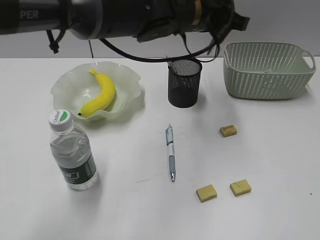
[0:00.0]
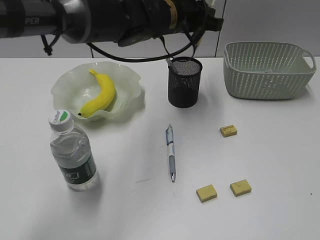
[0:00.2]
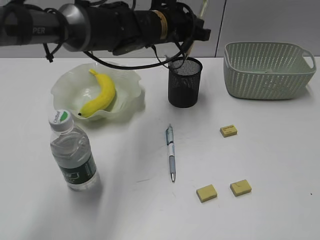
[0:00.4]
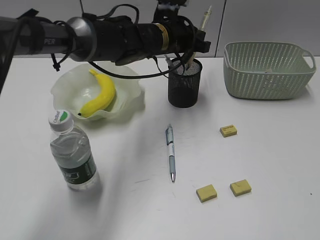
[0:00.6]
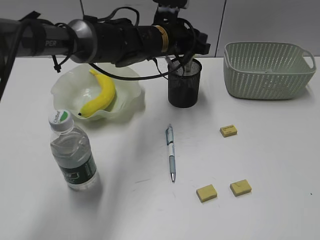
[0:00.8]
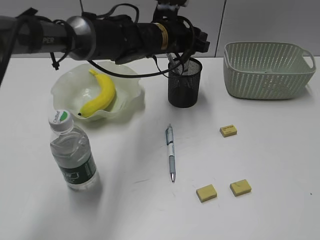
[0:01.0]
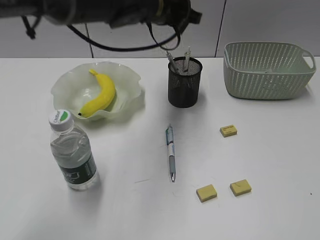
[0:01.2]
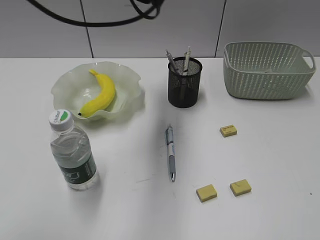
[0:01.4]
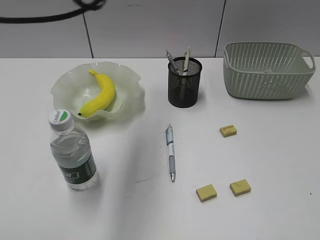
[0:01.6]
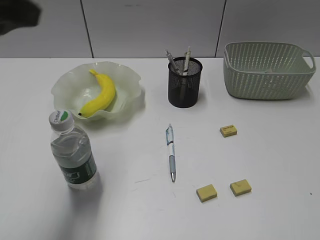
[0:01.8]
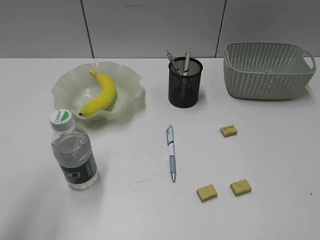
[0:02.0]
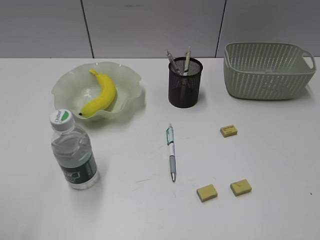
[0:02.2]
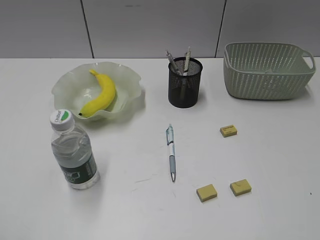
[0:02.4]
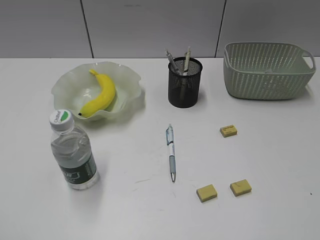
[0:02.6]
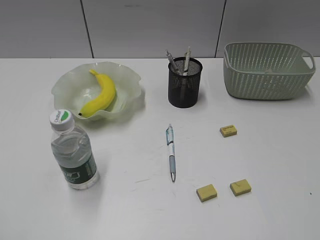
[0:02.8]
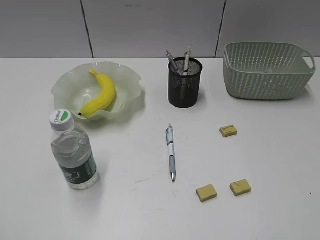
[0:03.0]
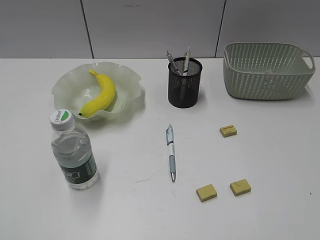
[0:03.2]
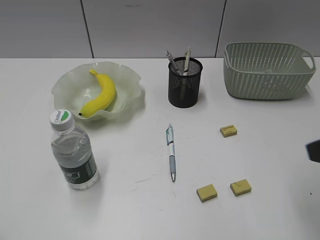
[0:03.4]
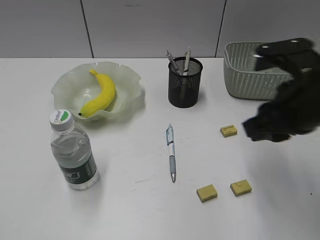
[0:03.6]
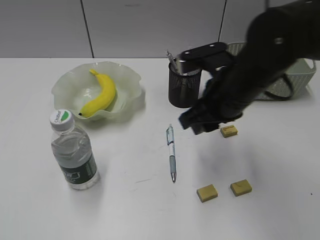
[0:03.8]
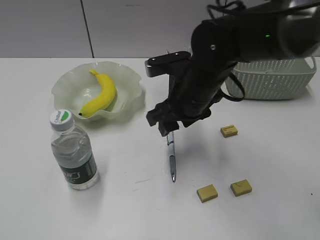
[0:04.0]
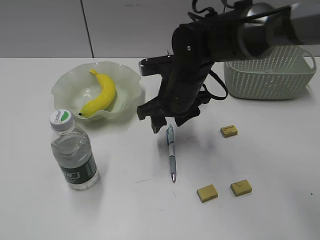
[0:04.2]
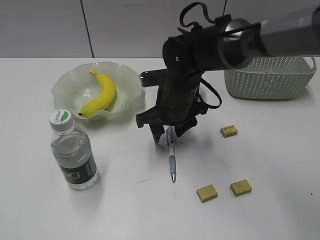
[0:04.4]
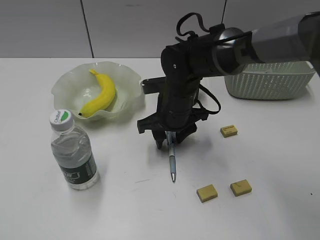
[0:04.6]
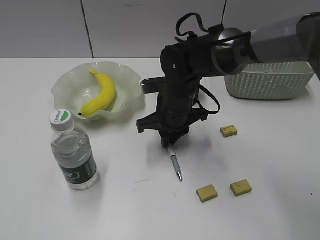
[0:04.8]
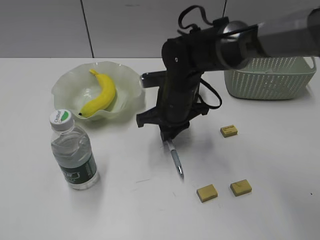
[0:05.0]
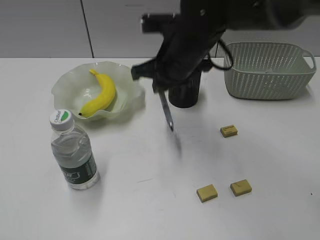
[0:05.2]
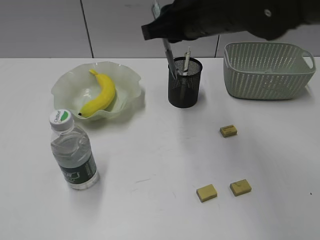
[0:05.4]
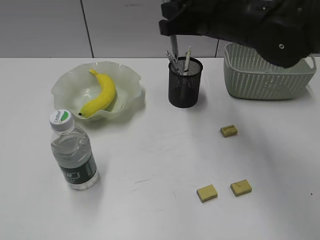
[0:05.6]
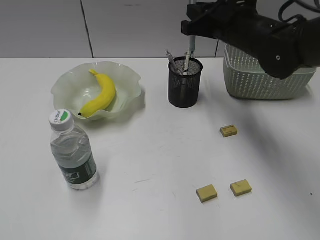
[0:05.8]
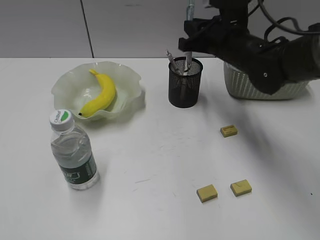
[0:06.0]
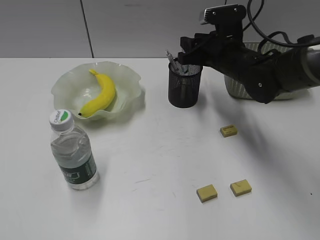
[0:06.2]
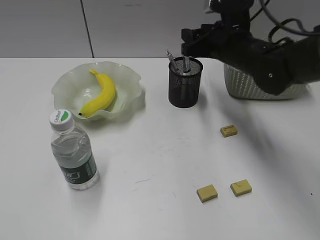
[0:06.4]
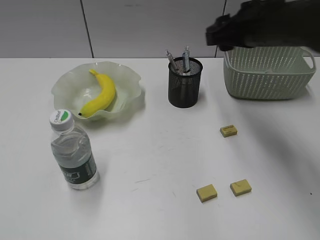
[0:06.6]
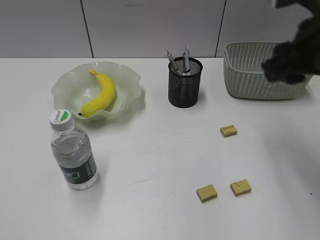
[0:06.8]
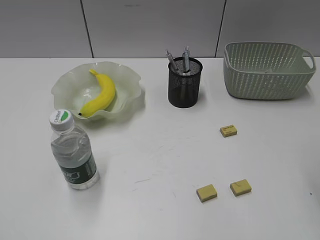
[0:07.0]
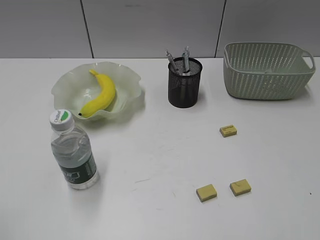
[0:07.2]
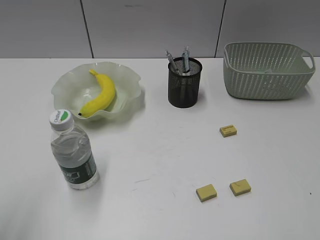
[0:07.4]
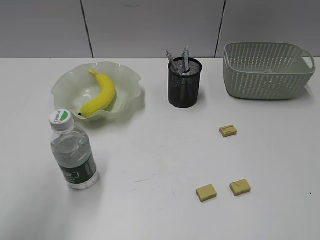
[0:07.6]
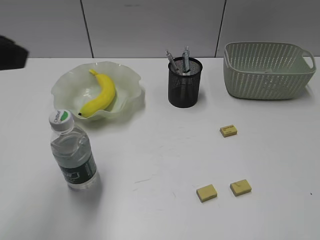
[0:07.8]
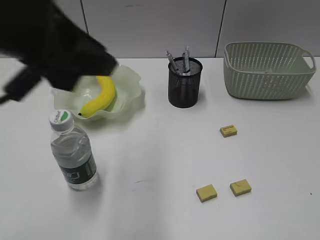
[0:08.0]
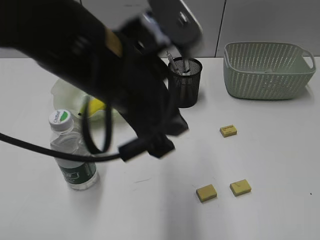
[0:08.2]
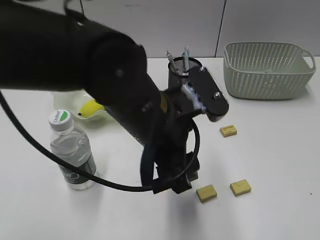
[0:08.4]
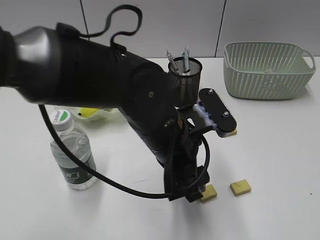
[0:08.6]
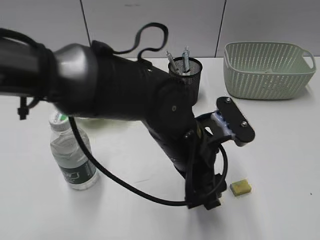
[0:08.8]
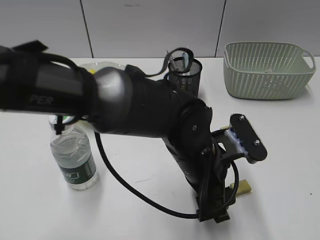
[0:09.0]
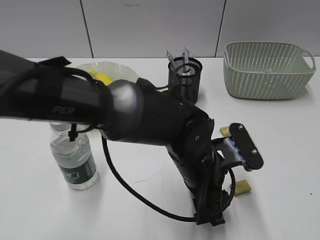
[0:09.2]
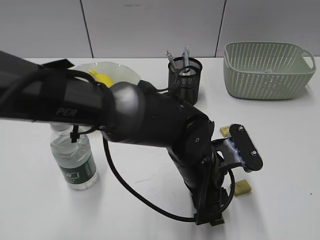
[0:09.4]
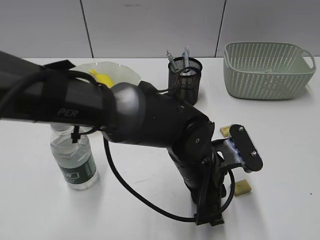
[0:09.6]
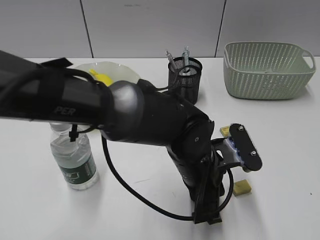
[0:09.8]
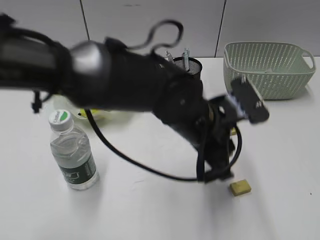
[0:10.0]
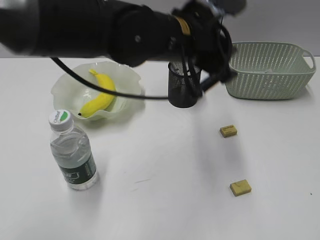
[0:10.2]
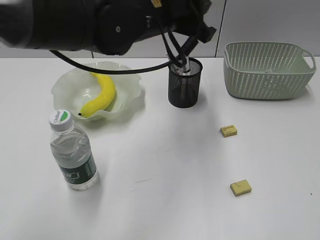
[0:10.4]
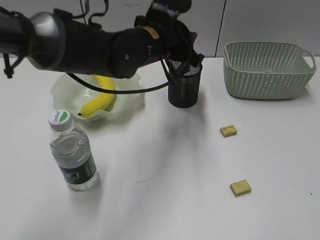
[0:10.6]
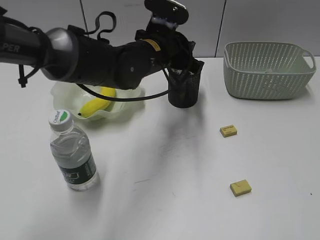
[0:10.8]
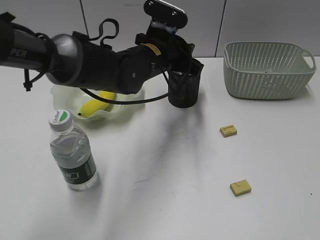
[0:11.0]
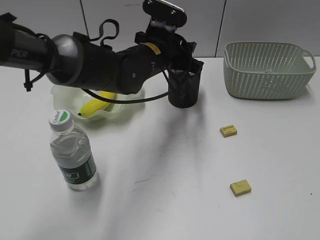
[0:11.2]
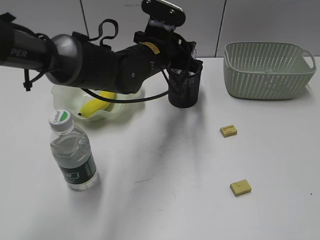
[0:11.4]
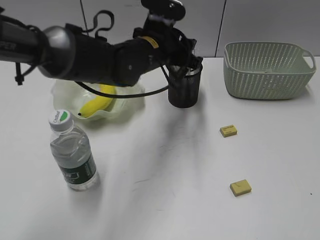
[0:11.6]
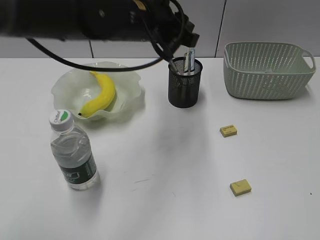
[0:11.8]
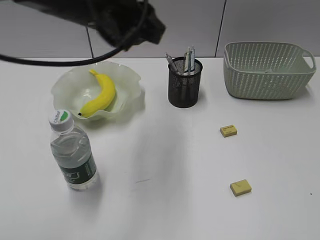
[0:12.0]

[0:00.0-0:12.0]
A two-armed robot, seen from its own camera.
Step, 0:00.0 to 0:01.0: Place the yellow pen in pen holder with left gripper.
Step, 0:01.2 to 0:04.8: Grasp the blue pen with right gripper.
Step, 0:05.0 to 0:06.4: Place the blue pen in pen holder with right gripper.
Step, 0:06.6 to 0:09.6: Grasp the eraser with left gripper.
Step, 0:09.8 to 0:11.6: Place the eraser in pen holder with left gripper.
0:00.0 to 0:01.6: The left gripper is displaced to the left, upward and backward by about 20 cm.
0:01.6 to 0:03.0: The left gripper moves backward and to the left, roughly 40 cm, and opens its fingers.
0:03.0 to 0:04.4: The right gripper shifts about 50 cm forward, to the left and downward, and opens up.
0:04.4 to 0:06.0: The right gripper shifts about 15 cm to the right, upward and forward, and closes its fingers.
0:06.0 to 0:07.6: The left gripper shifts approximately 15 cm forward and to the right. The right gripper moves backward and to the right, approximately 40 cm, and opens its fingers.
0:07.6 to 0:09.0: The left gripper shifts roughly 40 cm to the right and downward, and opens its fingers.
0:09.0 to 0:10.4: The left gripper heads upward, forward and to the left, covering about 20 cm, and closes.
0:10.4 to 0:12.0: The left gripper shifts about 5 cm to the left, and moves approximately 10 cm downward and comes back.

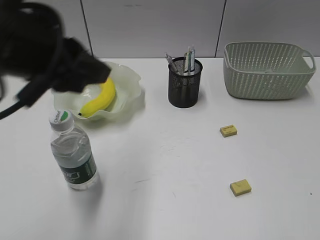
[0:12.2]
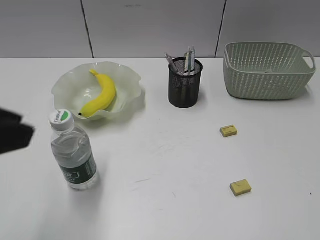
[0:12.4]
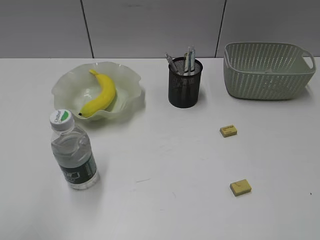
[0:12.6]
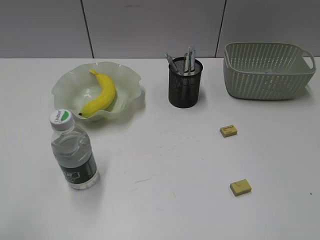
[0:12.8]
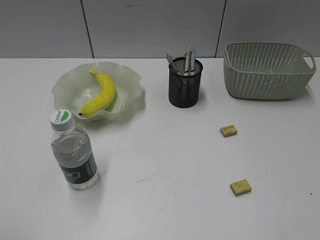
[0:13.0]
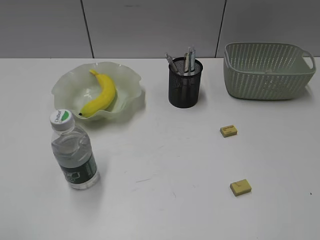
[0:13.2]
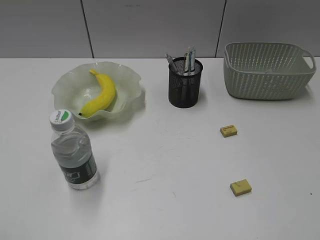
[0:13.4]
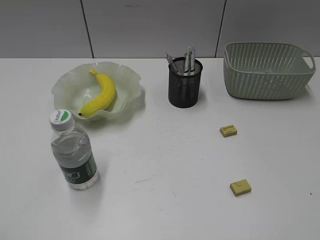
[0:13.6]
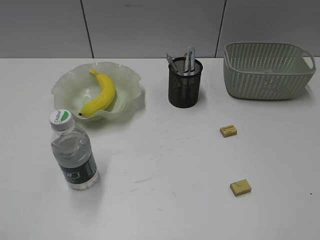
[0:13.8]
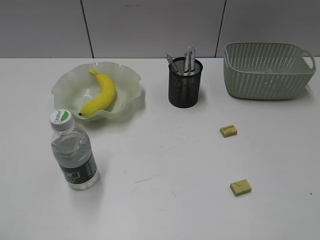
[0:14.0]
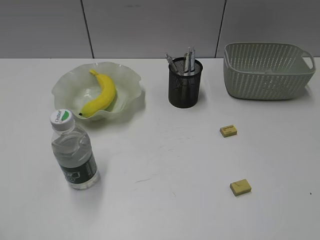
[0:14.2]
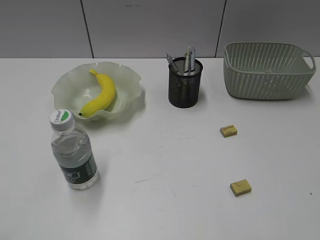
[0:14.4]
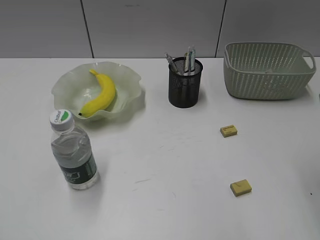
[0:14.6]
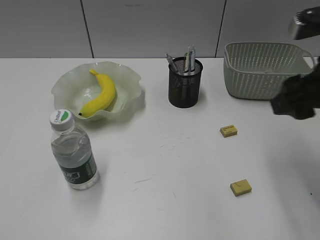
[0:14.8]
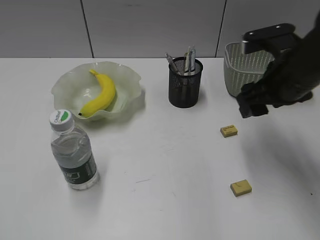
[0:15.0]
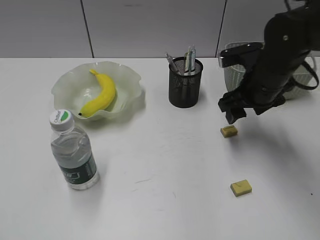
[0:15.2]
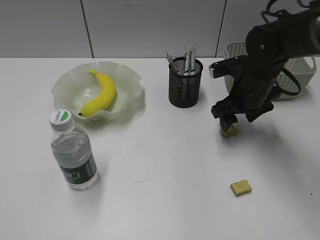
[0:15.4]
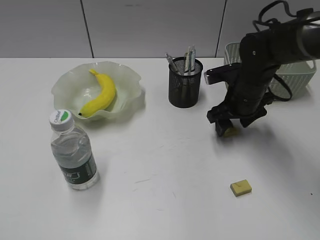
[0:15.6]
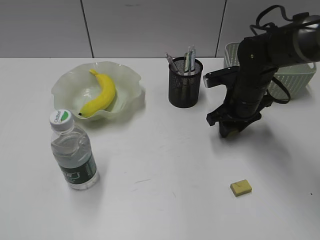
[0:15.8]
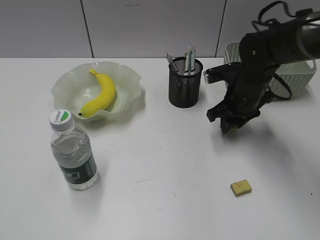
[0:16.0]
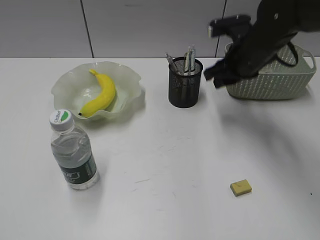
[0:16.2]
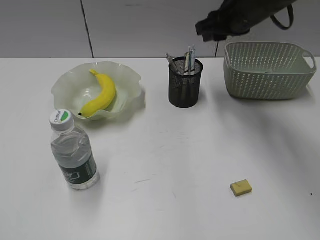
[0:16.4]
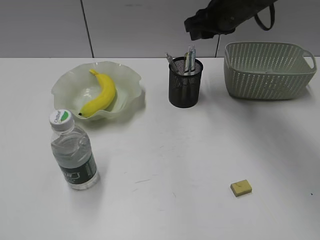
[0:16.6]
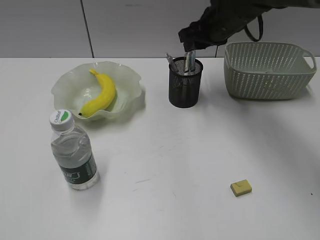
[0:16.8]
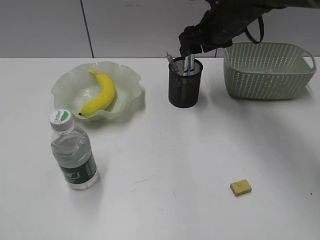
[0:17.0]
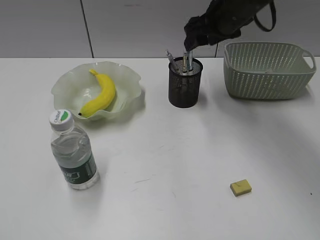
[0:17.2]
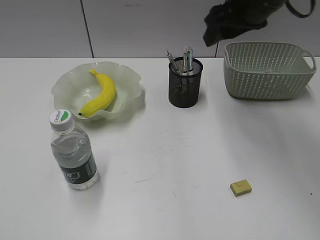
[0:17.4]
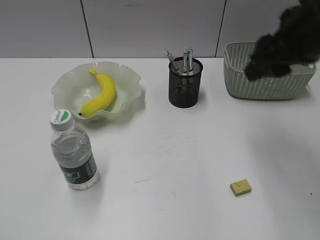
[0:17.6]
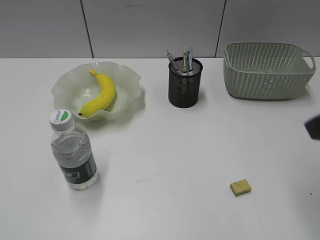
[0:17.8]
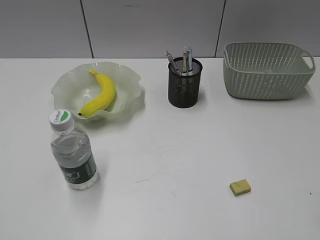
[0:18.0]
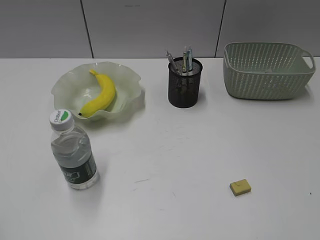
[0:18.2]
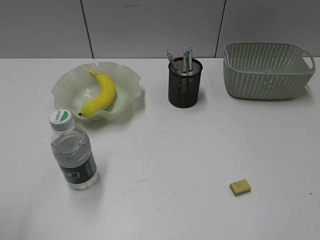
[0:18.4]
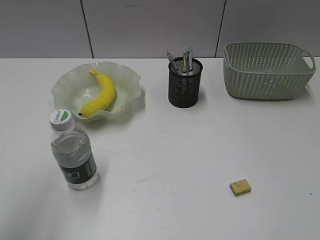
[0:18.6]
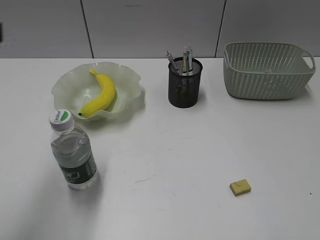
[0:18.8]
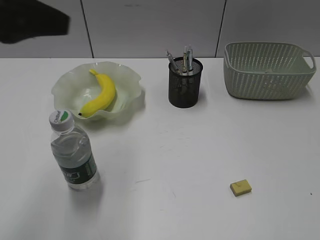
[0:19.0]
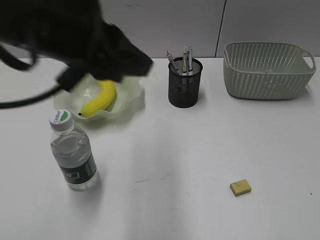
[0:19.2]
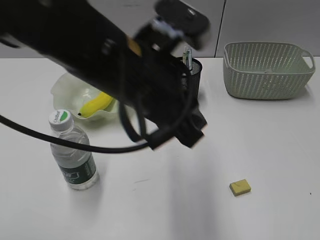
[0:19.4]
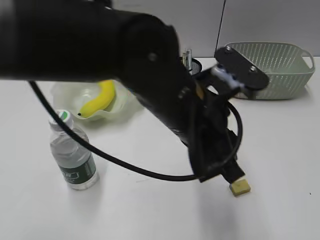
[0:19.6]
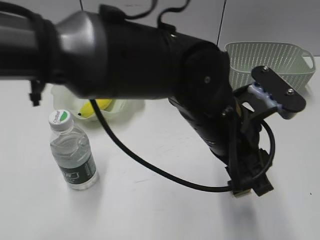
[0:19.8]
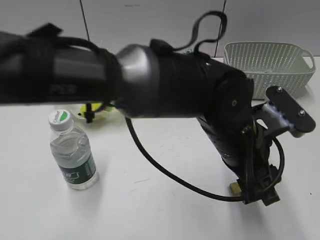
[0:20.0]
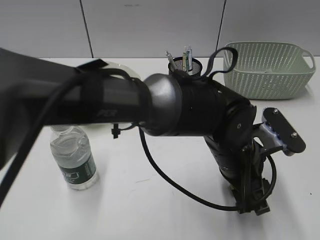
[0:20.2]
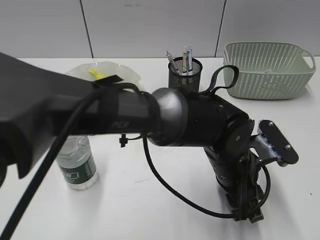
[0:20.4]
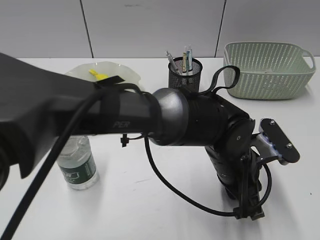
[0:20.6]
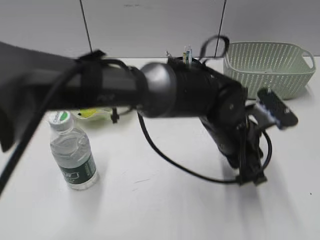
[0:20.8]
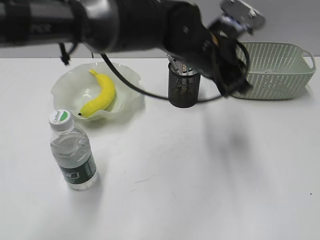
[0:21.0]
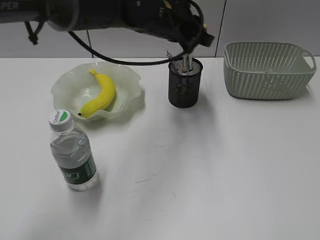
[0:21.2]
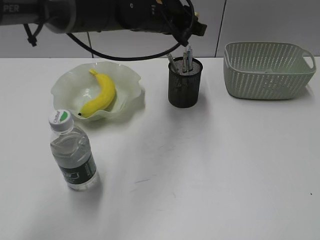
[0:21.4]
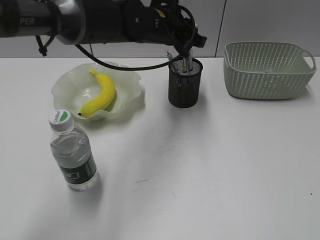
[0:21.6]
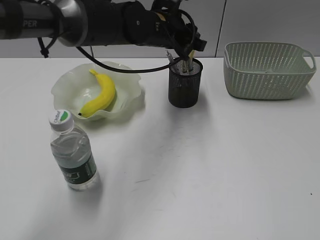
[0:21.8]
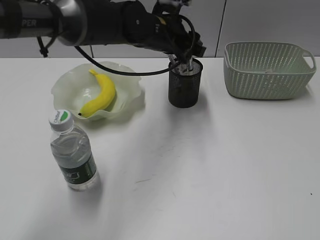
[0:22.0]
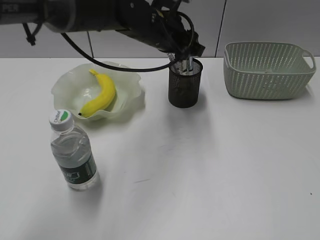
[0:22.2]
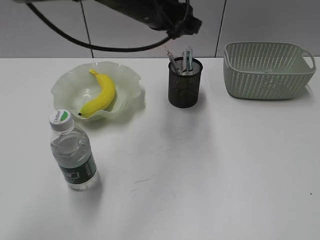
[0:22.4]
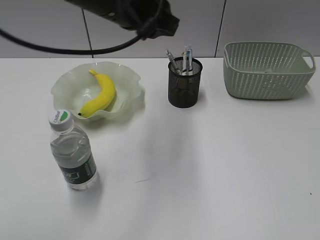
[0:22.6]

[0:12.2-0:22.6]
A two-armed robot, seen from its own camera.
Step, 0:12.2 to 0:15.8: Grasp the eraser with right gripper.
Step, 0:16.0 to 0:17.0: Place the eraser in pen holder with right gripper.
Step, 0:17.2 to 0:20.4: Grasp the eraser with left gripper.
Step, 0:20.6 to 0:21.8: Place the eraser in pen holder with left gripper.
0:12.2 to 0:13.6: The left gripper moves backward and to the left, some 30 cm.
0:13.6 to 0:15.2: The right gripper goes roughly 40 cm forward and to the left, and opens its fingers.
0:15.2 to 0:16.6: The right gripper heads forward and upward, covering about 10 cm, and closes.
0:16.6 to 0:18.2: The right gripper shifts about 40 cm backward, and opens and closes again.
0:18.2 to 0:19.6: The left gripper is displaced to the right and forward by roughly 40 cm.
0:19.6 to 0:21.2: The left gripper moves forward, some 20 cm, and opens, then closes again.
0:21.2 to 0:22.6: The left gripper heads backward, to the left and upward, covering some 10 cm.
